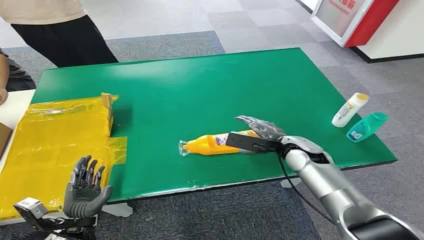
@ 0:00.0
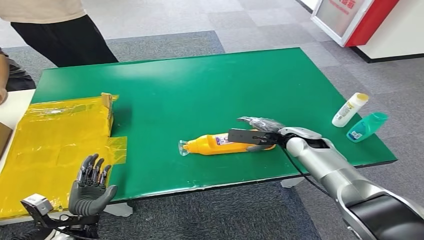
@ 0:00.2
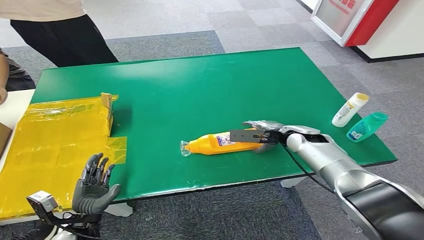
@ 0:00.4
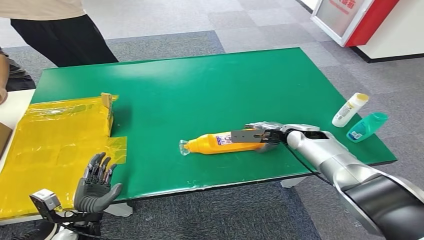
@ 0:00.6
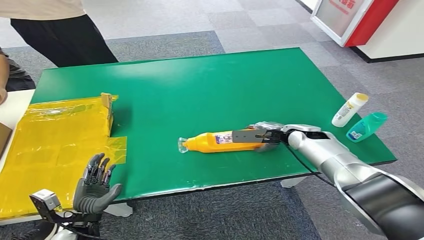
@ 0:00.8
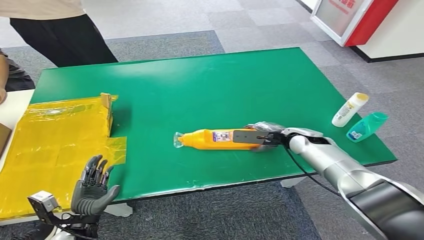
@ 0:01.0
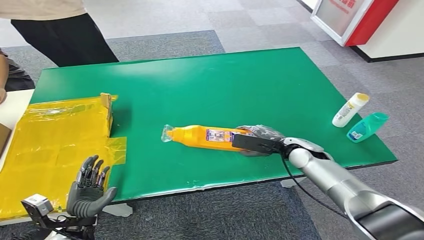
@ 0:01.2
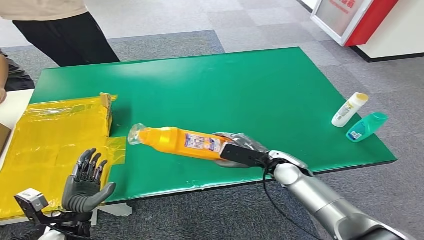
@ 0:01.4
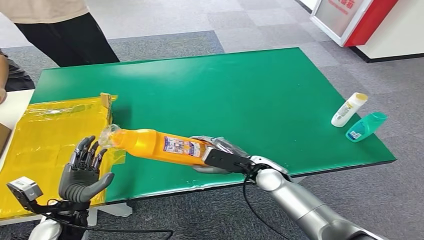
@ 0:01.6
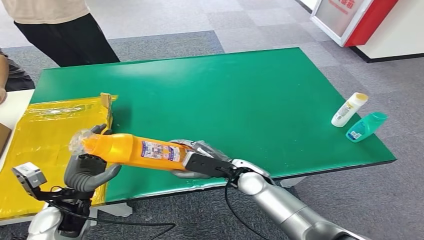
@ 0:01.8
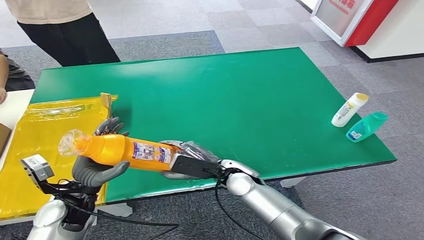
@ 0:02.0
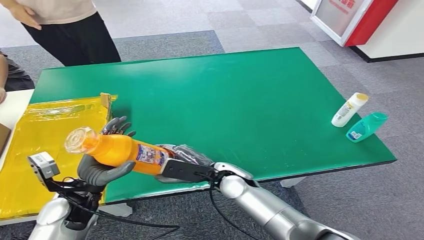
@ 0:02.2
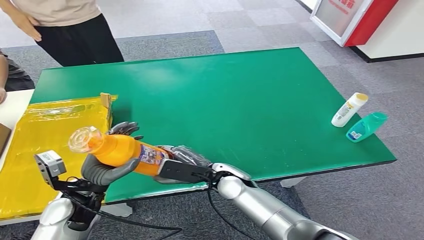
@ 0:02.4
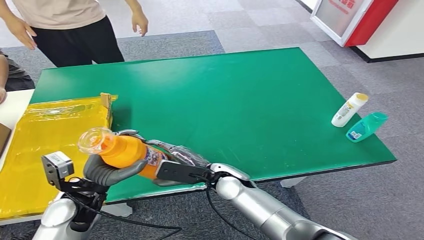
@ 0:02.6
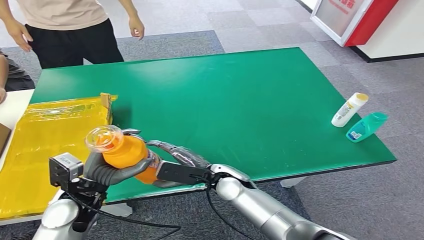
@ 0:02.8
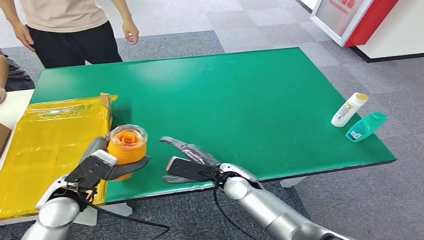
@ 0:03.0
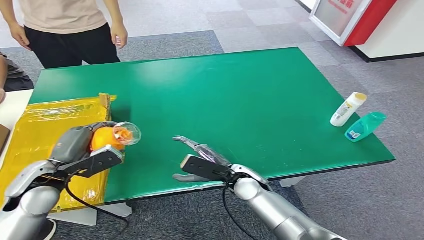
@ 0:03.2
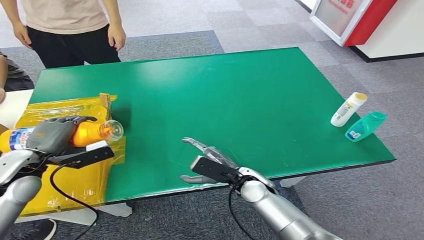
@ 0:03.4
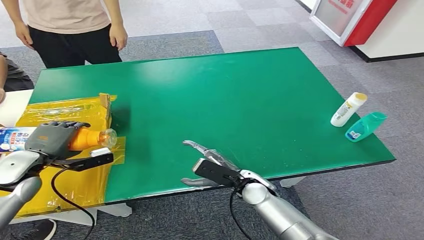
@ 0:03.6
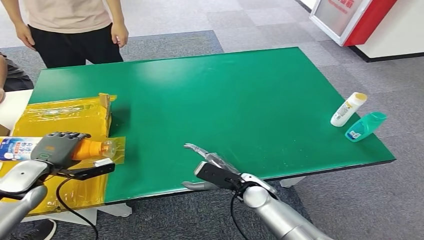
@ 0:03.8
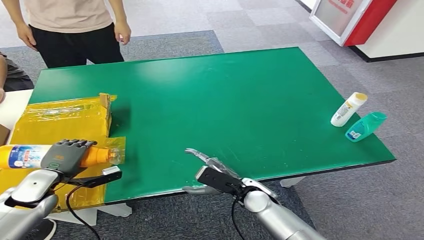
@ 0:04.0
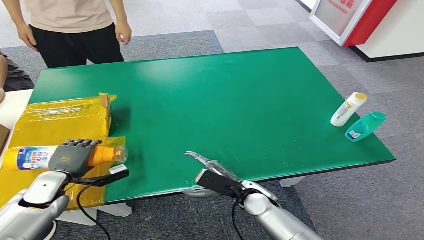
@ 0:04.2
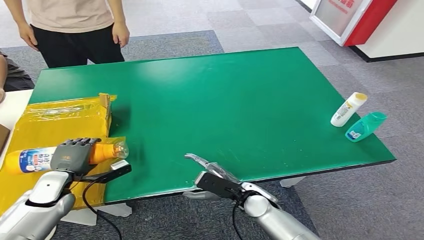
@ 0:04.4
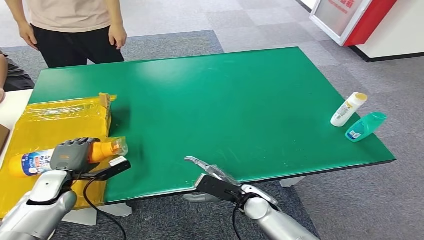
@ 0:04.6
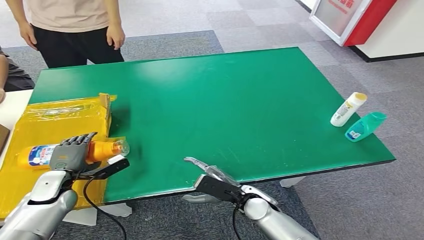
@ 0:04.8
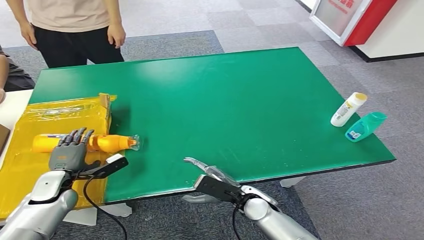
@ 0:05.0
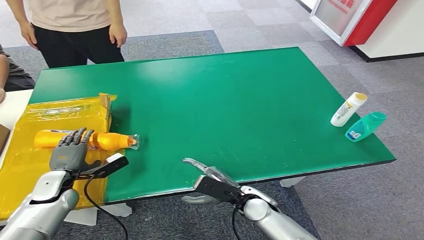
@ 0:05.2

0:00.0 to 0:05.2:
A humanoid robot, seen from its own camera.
Step, 0:00.0 to 0:01.6: Pick up the bottle from the table.
Step, 0:01.8 to 0:05.2: Turn the bottle to the front side.
0:03.4 to 0:05.2: The left hand is displaced downward by approximately 15 cm, while the right hand moves about 5 cm.
